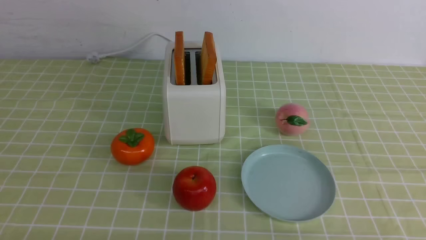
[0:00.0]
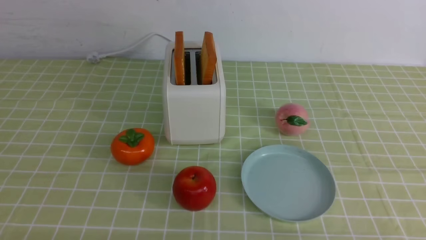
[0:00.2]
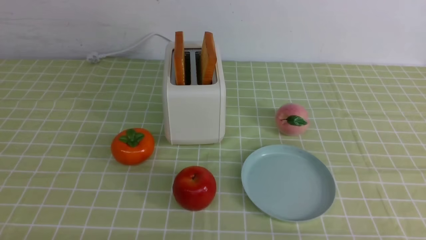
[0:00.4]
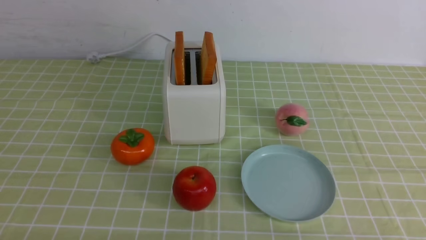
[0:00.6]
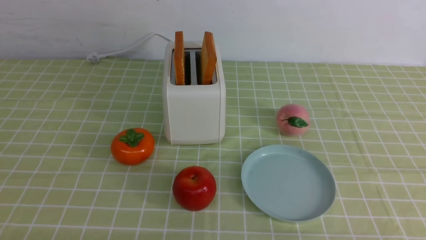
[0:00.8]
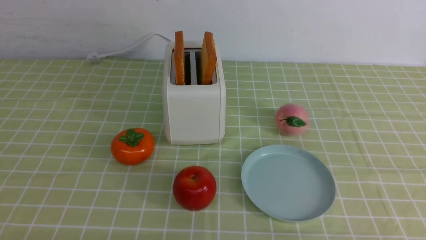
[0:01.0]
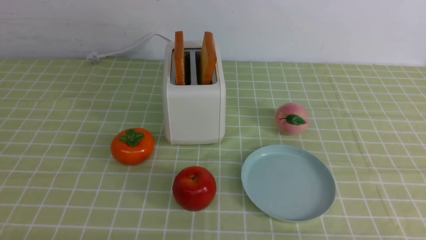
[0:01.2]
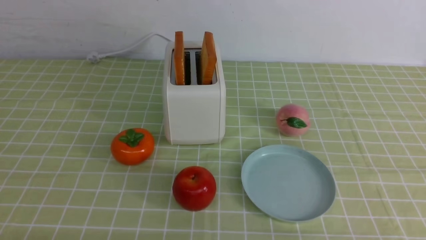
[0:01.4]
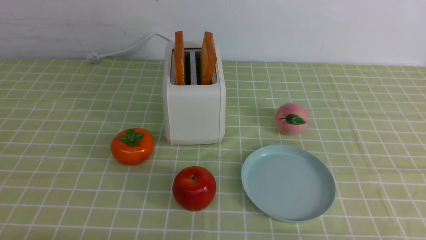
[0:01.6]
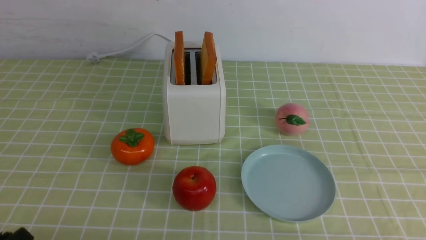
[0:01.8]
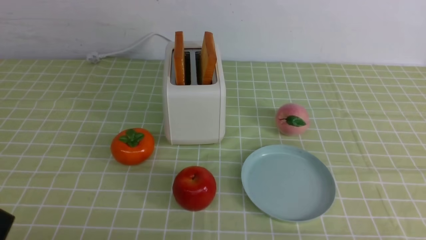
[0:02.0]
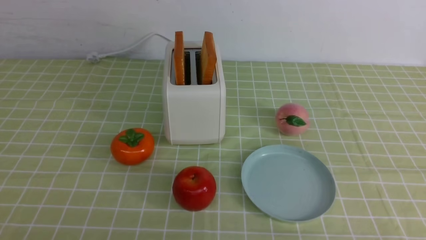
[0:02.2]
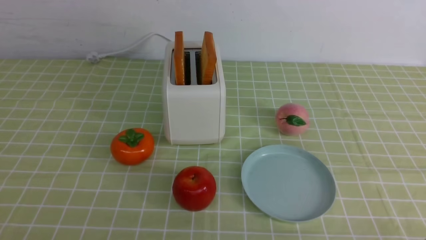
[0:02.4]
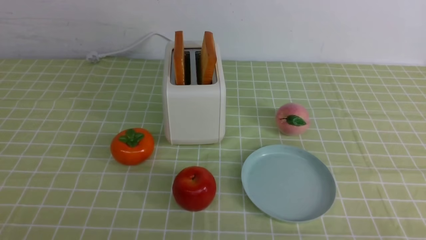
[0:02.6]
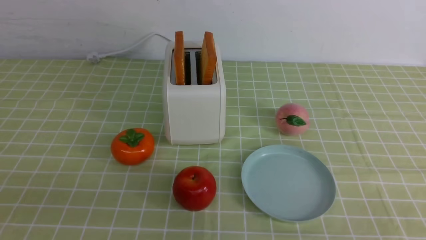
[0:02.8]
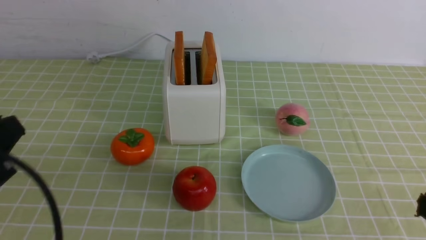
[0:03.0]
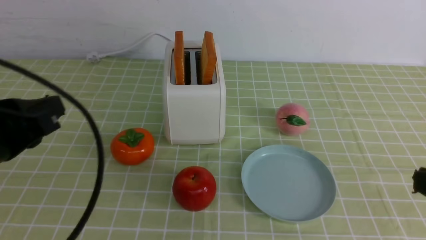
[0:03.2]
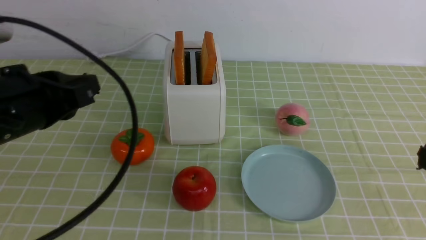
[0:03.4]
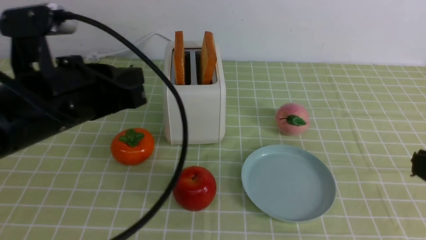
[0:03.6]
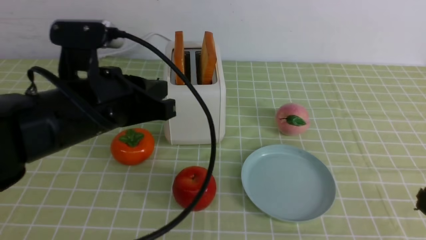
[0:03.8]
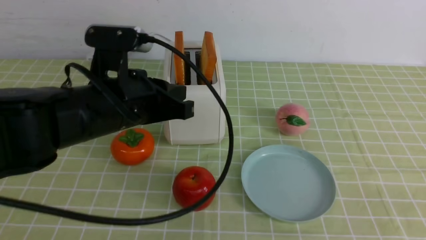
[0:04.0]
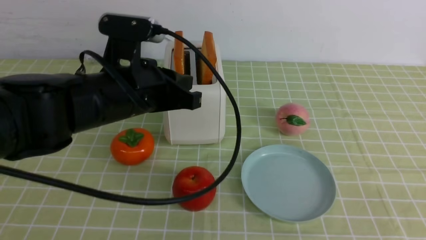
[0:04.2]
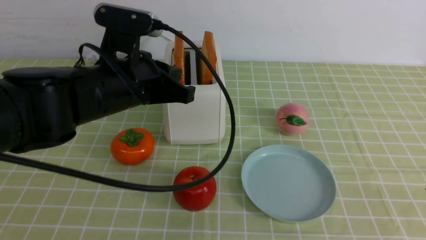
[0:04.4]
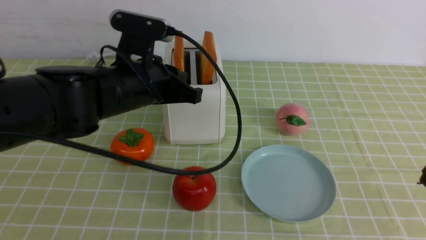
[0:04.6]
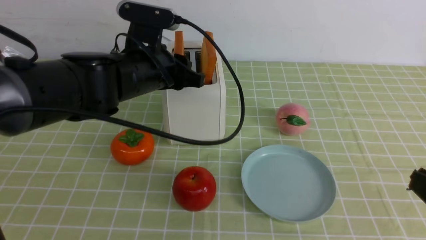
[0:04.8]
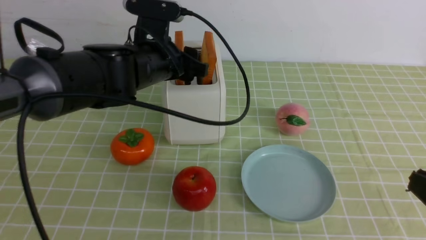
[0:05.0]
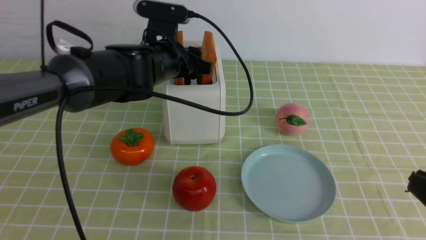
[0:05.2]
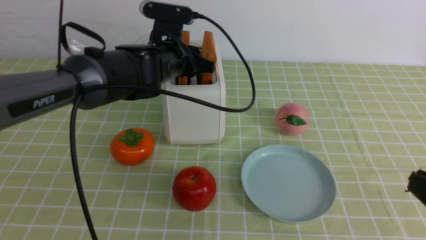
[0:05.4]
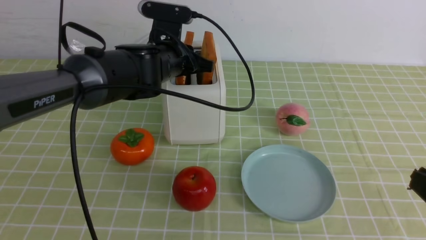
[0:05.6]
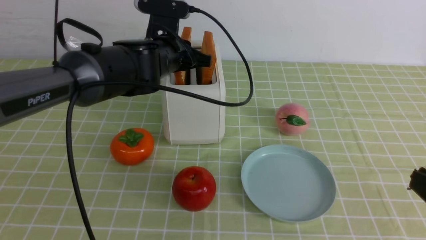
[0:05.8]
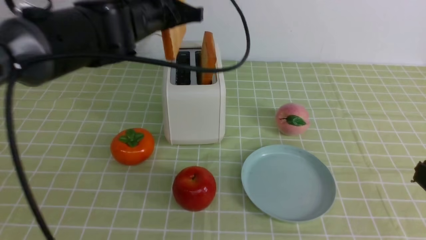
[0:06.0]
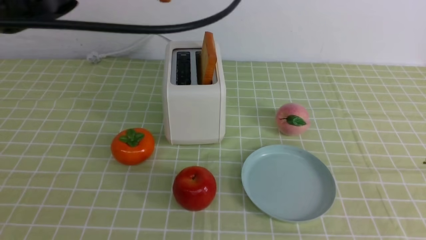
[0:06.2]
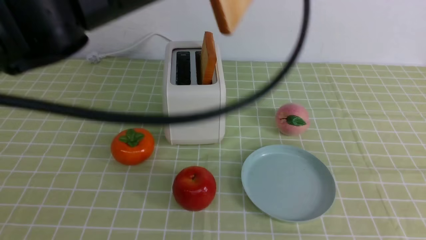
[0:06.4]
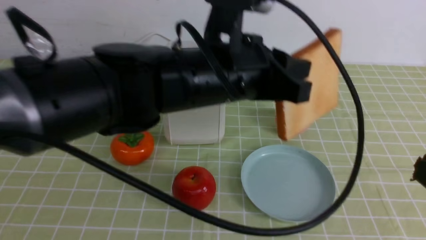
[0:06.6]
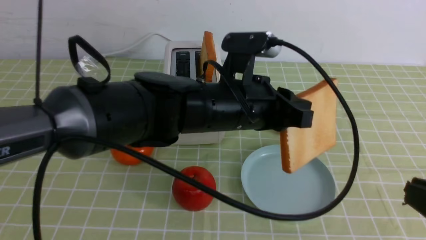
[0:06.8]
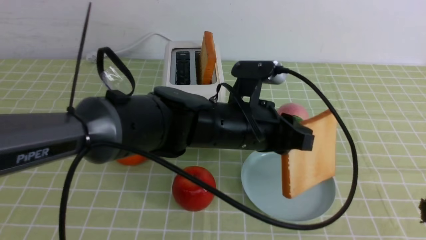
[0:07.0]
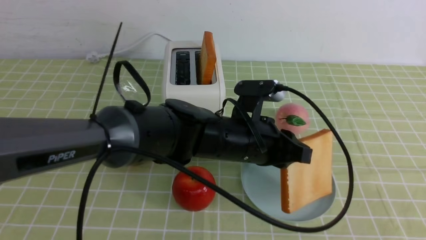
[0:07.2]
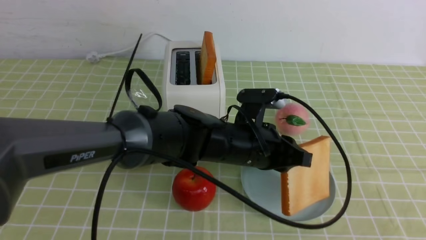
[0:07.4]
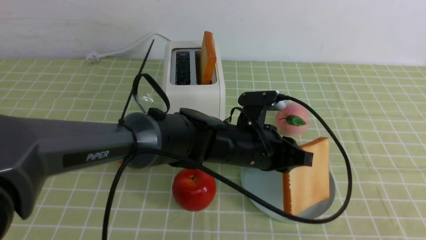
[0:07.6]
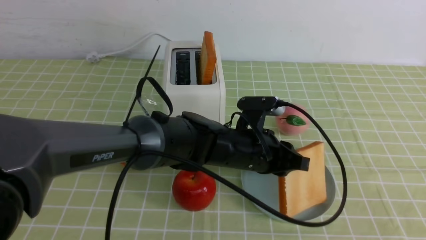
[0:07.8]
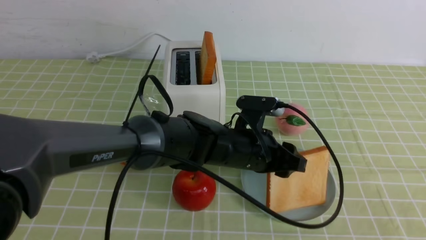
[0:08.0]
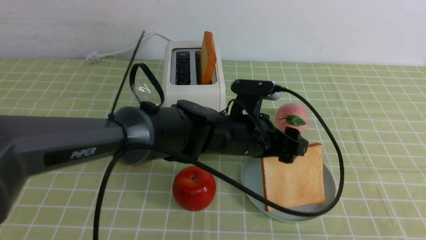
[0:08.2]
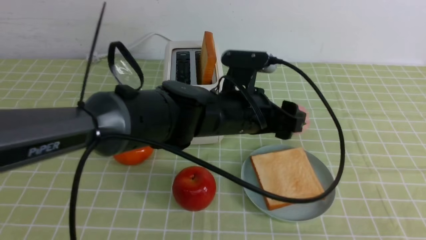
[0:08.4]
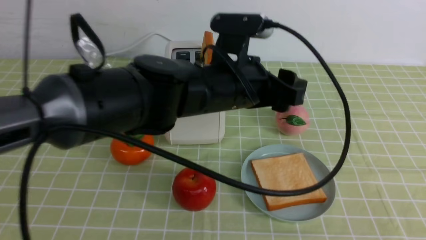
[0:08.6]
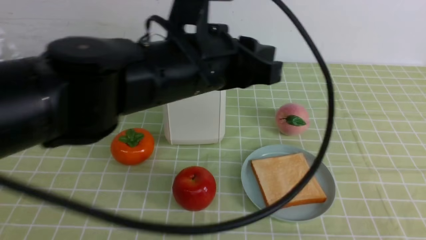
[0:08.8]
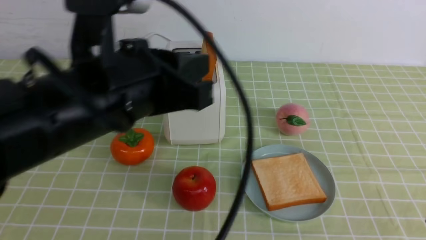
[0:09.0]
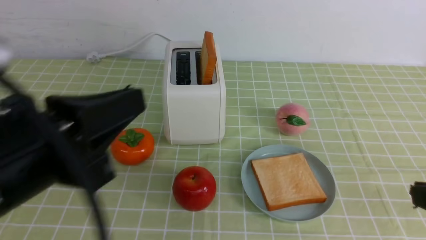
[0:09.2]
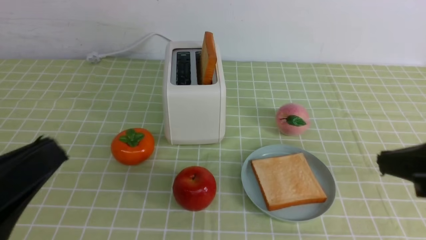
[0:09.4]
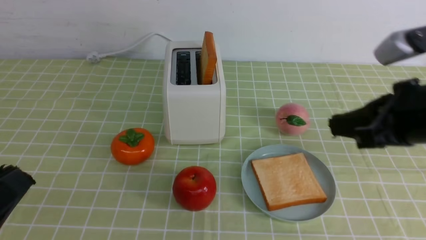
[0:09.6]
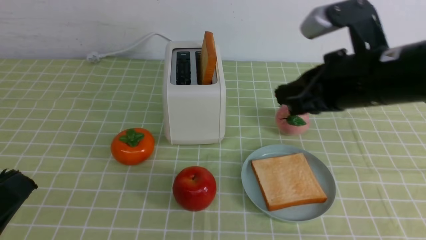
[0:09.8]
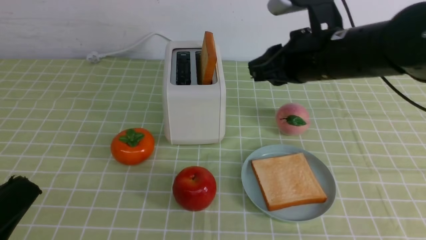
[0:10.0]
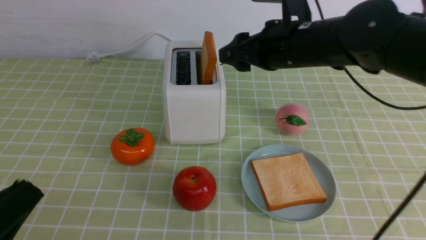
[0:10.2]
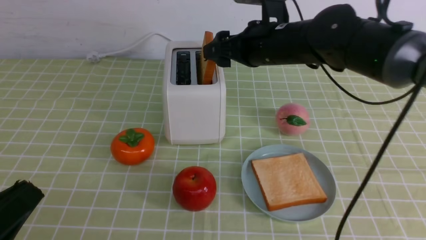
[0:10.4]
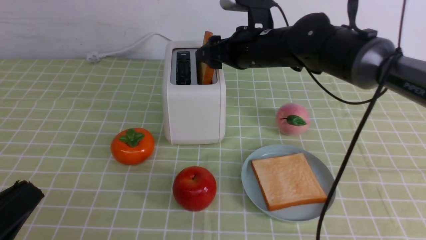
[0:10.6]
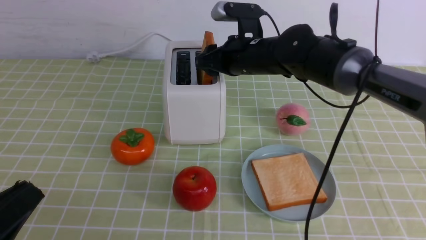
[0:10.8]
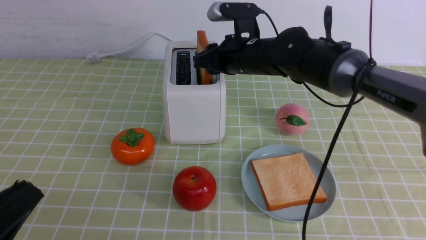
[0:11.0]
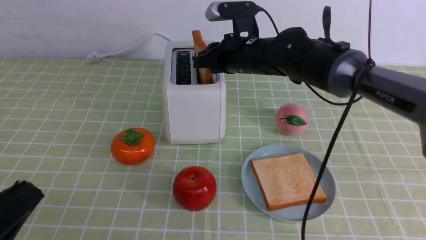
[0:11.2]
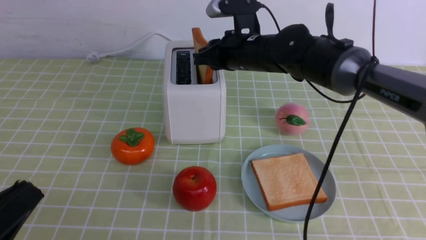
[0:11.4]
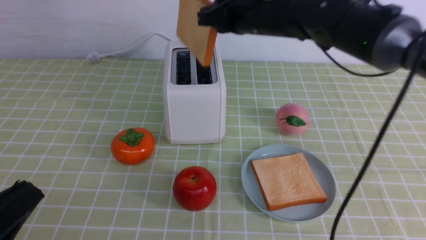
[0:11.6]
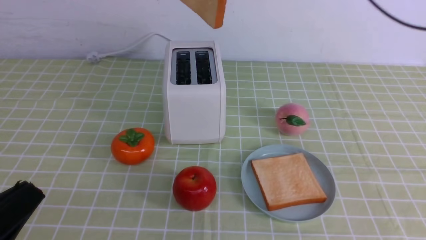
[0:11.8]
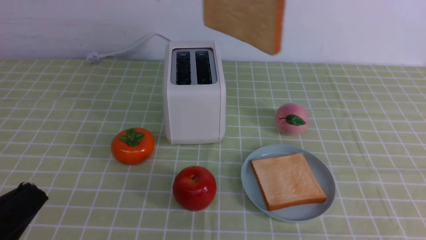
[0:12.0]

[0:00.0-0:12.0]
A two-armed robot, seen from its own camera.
Task of the whole recording: take toasted bread from bread machine on green coffee tablecloth place on plate.
Step, 0:00.0 to 0:05.8: use the left arm to take out a slice of bread.
Step, 0:06.0 to 0:08.2: use the left arm to put a slice of bread into the empty plate.
Step, 0:08.4 to 0:11.8: use the right arm to take out a slice of bread.
0:01.6 to 0:03.0: The left gripper heads upward and forward, covering some 15 cm, and closes.
0:03.0 to 0:04.4: The left gripper heads forward and to the right, covering roughly 20 cm.
0:04.4 to 0:06.0: The left gripper shifts roughly 10 cm upward and forward, and opens and closes again.
0:06.0 to 0:07.6: The left gripper heads downward and to the right, covering some 25 cm.
0:07.6 to 0:09.0: The left gripper travels upward, to the left and backward by about 25 cm, and opens, then closes again.
0:09.0 to 0:10.4: The right gripper is displaced forward and to the left by some 40 cm, and opens, while the left gripper shifts about 20 cm backward, to the left and downward.
0:10.4 to 0:12.0: The right gripper shifts about 25 cm upward, backward and to the right, and closes up.

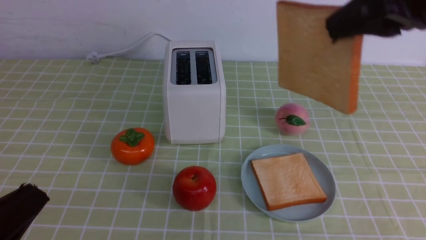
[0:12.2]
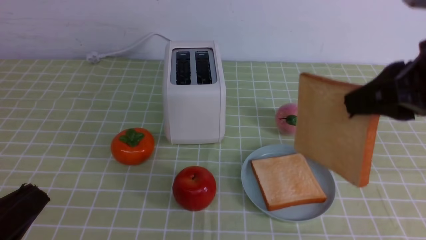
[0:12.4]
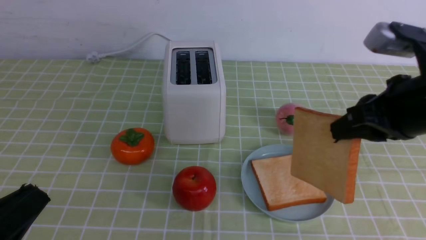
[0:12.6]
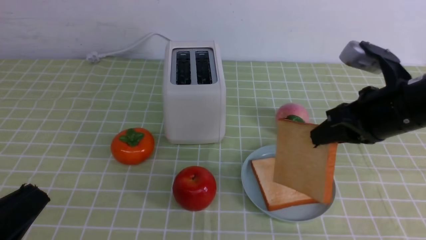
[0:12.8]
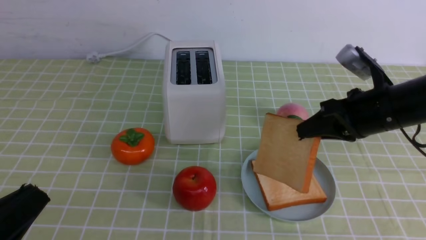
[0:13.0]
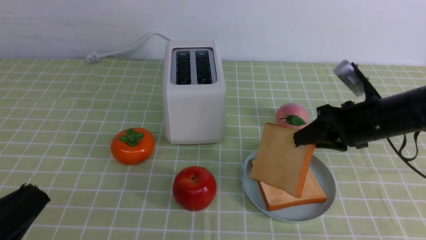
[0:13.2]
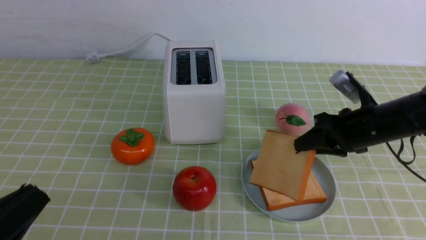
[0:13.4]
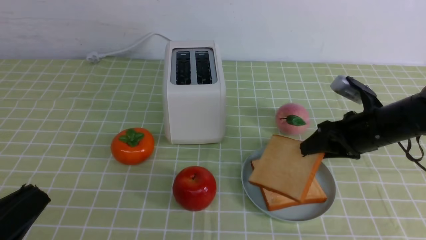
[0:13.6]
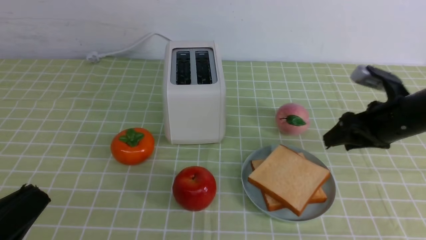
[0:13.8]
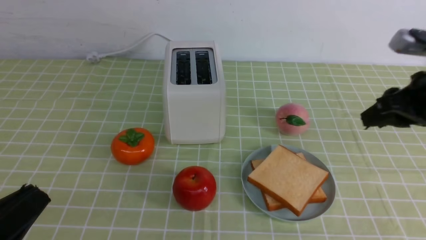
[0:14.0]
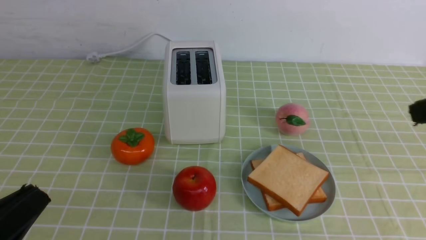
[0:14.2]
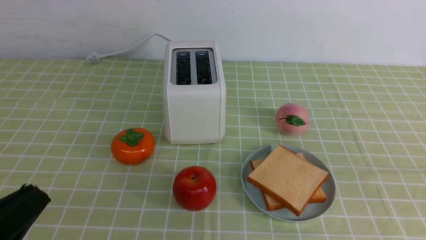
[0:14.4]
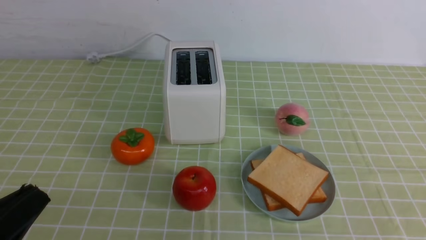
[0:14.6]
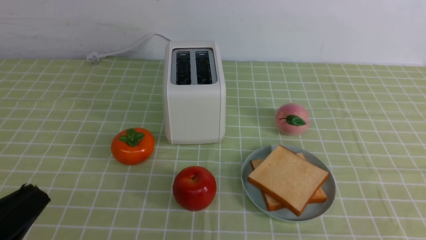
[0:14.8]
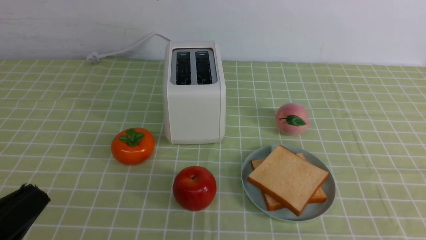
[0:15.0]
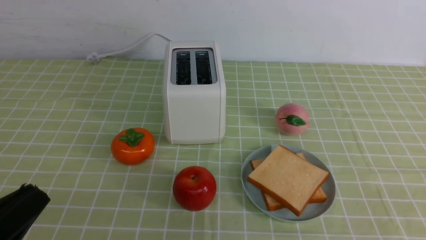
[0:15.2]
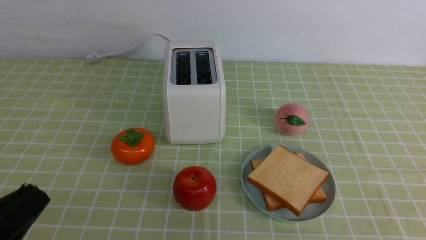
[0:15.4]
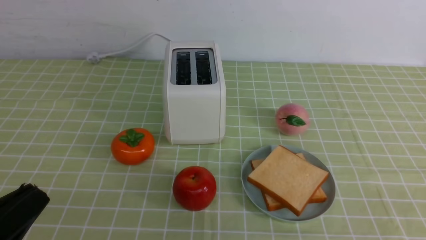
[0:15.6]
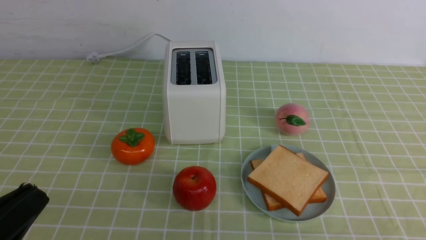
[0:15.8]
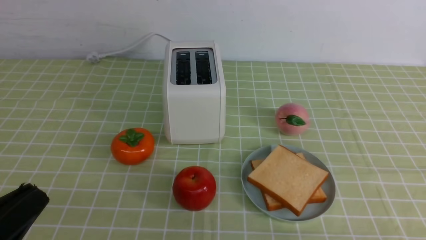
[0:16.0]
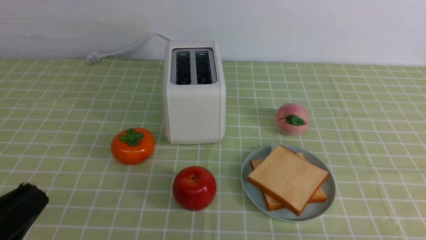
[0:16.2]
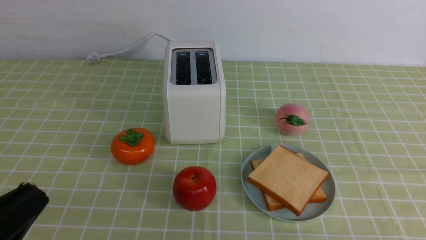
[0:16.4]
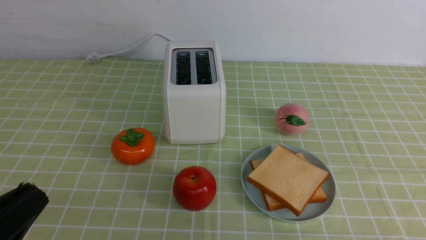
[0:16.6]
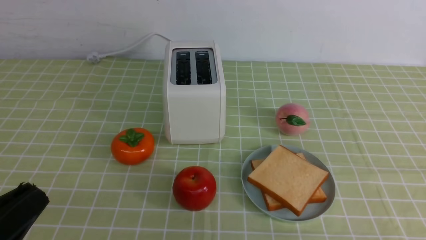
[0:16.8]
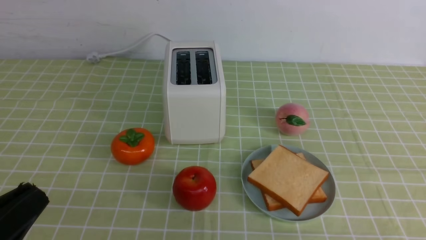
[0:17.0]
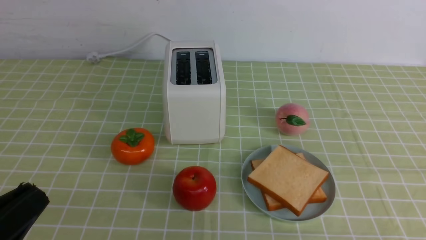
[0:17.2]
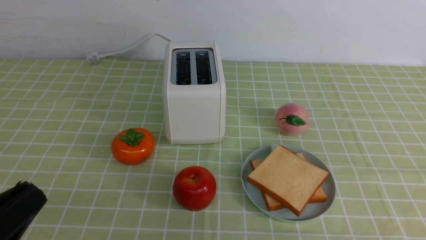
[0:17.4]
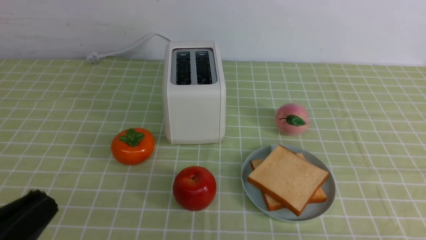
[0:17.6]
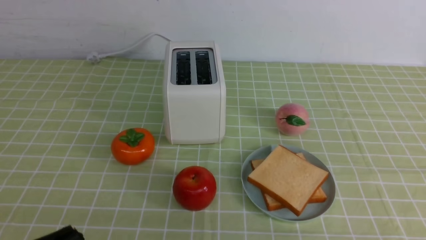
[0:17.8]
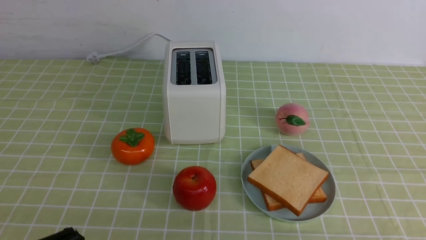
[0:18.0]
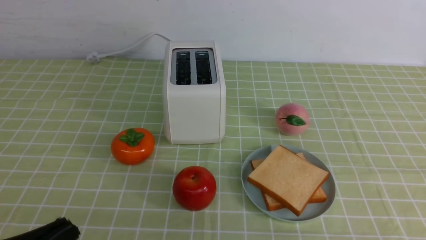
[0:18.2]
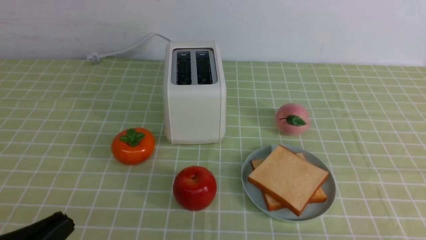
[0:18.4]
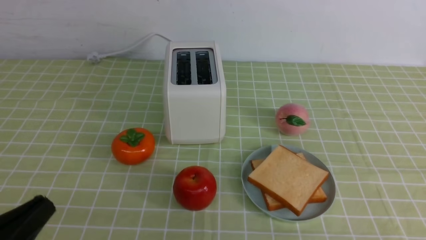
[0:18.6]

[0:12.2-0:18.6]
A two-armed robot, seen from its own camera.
Task of the whole recording: take toasted bread from bread machine on green coffee tablecloth place on plate.
Step, 0:12.2 to 0:13.6: use the right arm to put a slice of bread into the plate.
0:12.2 to 0:13.8: The right gripper shifts approximately 20 cm downward, forward and to the right, and opens up.
0:13.8 to 0:15.4: The right gripper shifts about 25 cm backward, and closes its fingers.
0:17.0 to 0:18.6: The grippers move only a little.
